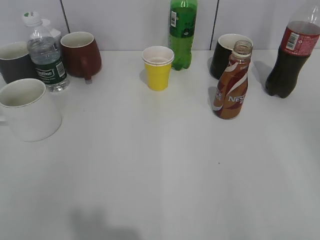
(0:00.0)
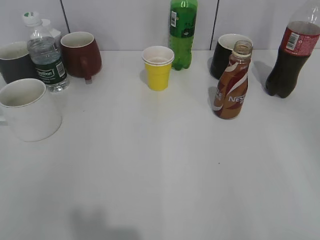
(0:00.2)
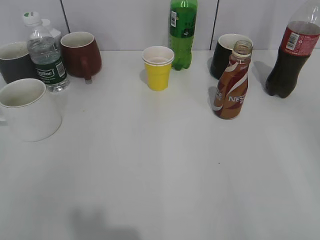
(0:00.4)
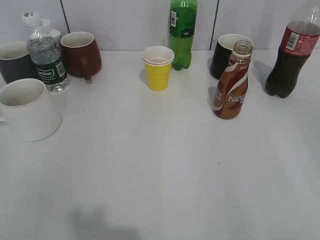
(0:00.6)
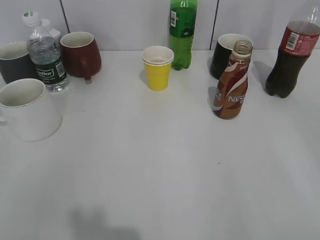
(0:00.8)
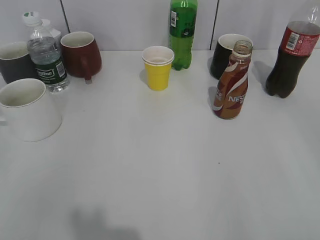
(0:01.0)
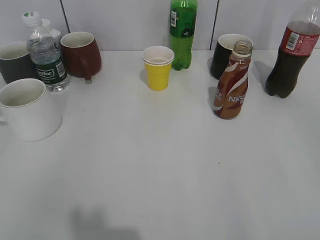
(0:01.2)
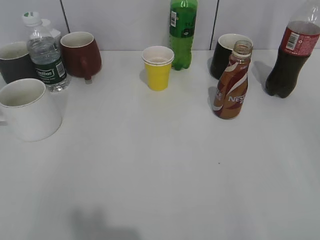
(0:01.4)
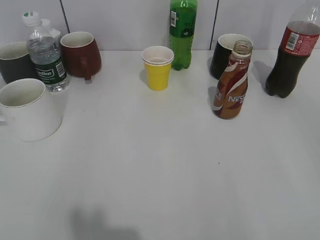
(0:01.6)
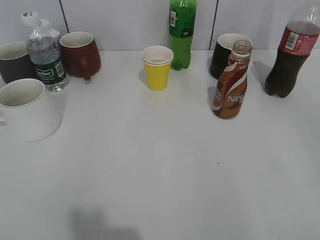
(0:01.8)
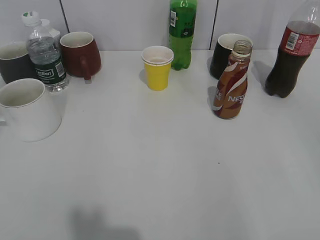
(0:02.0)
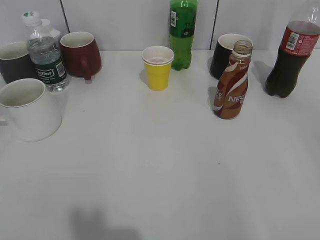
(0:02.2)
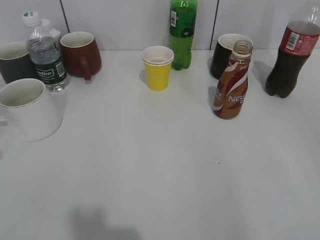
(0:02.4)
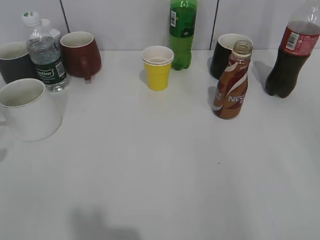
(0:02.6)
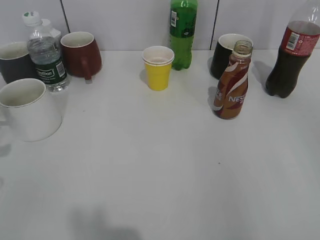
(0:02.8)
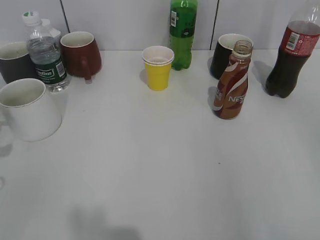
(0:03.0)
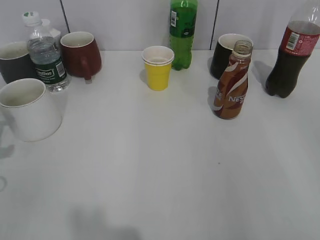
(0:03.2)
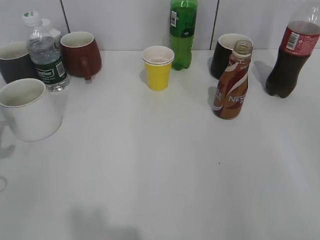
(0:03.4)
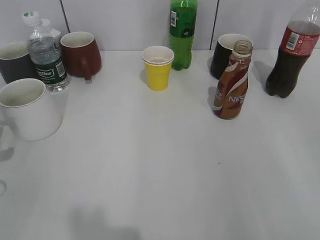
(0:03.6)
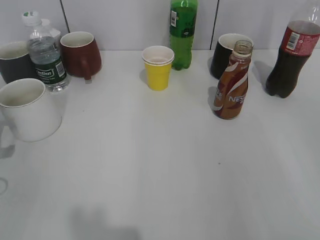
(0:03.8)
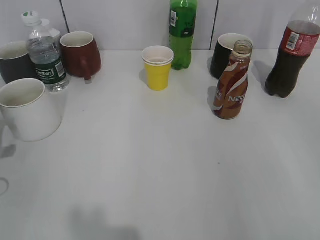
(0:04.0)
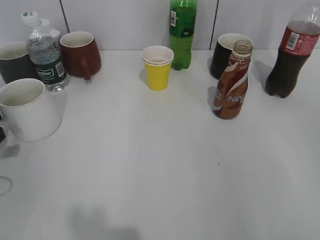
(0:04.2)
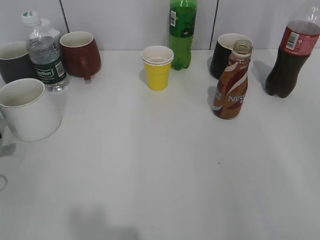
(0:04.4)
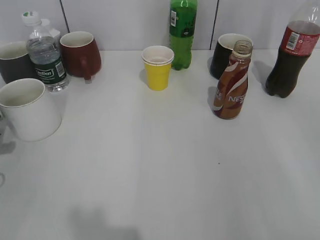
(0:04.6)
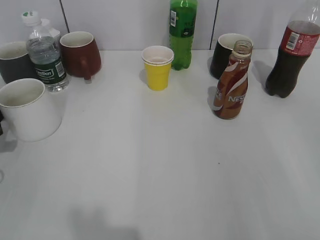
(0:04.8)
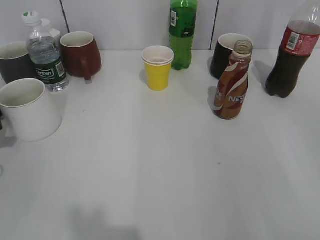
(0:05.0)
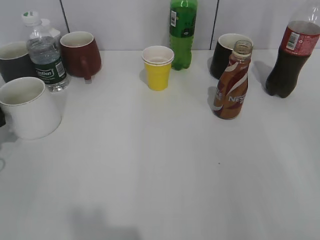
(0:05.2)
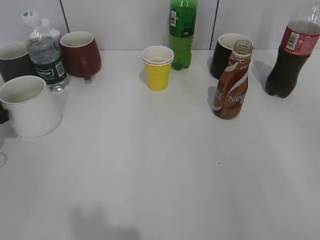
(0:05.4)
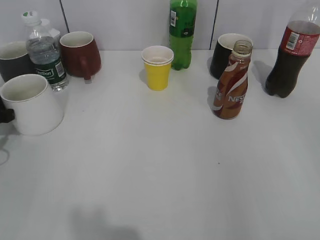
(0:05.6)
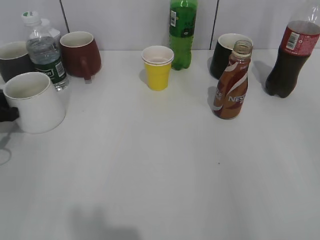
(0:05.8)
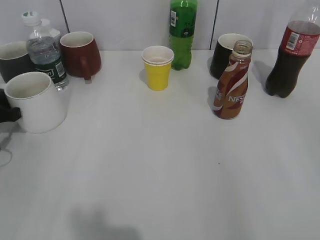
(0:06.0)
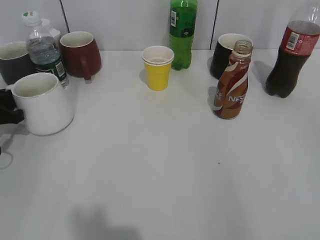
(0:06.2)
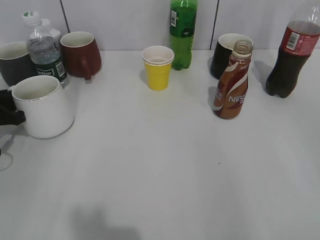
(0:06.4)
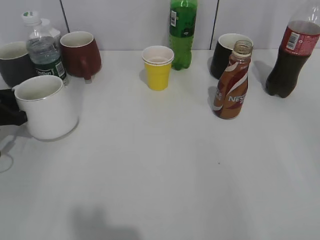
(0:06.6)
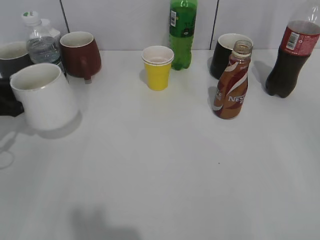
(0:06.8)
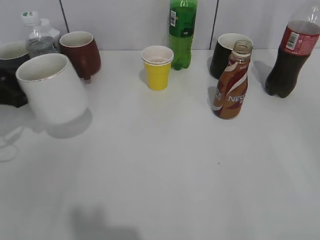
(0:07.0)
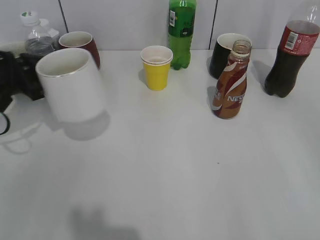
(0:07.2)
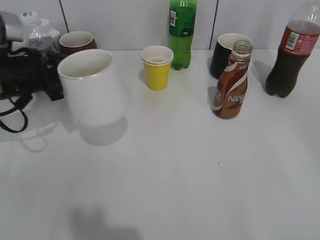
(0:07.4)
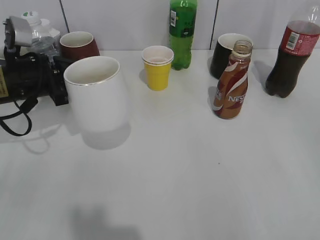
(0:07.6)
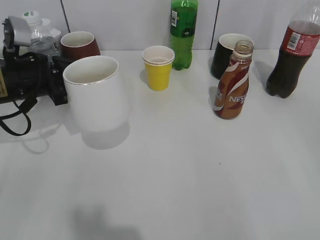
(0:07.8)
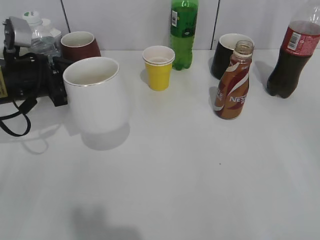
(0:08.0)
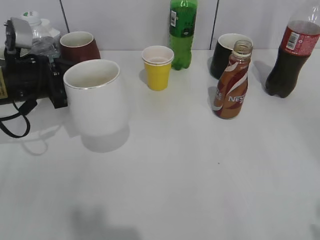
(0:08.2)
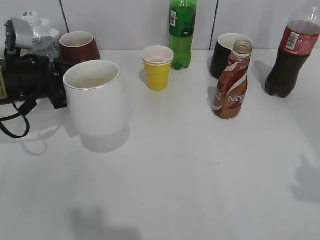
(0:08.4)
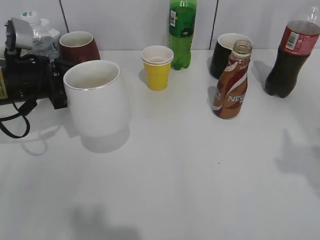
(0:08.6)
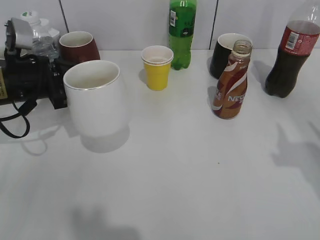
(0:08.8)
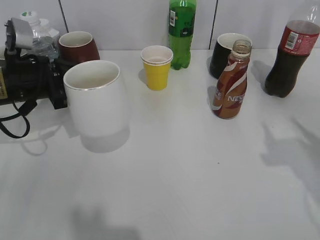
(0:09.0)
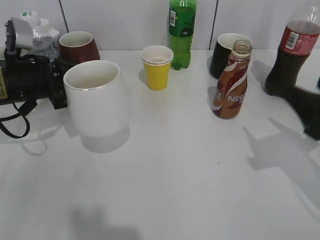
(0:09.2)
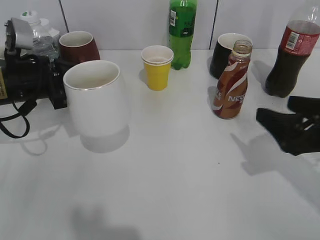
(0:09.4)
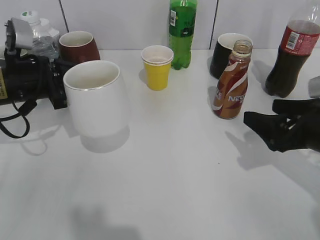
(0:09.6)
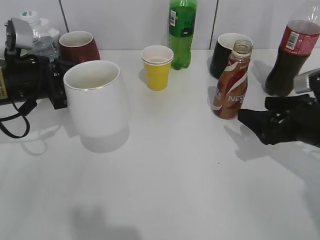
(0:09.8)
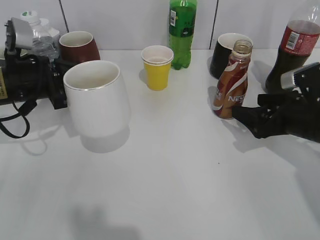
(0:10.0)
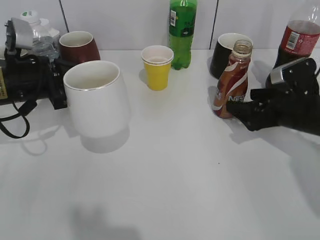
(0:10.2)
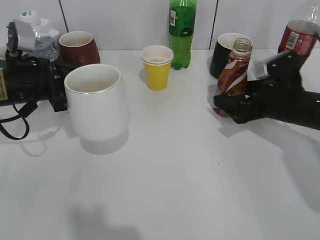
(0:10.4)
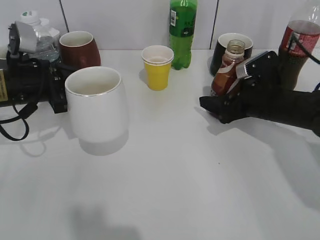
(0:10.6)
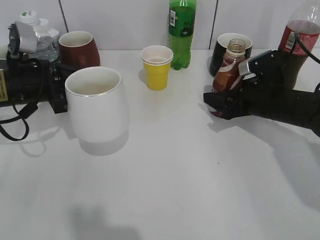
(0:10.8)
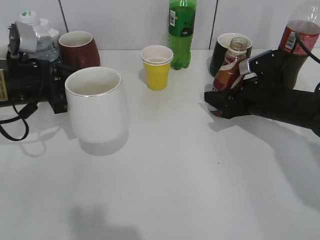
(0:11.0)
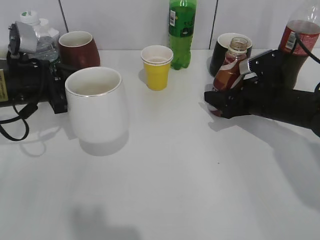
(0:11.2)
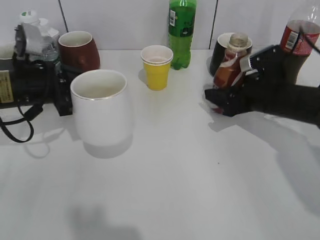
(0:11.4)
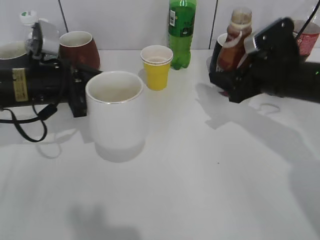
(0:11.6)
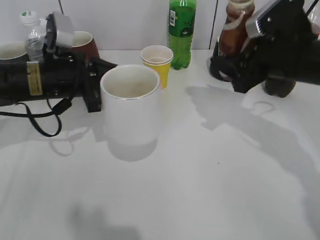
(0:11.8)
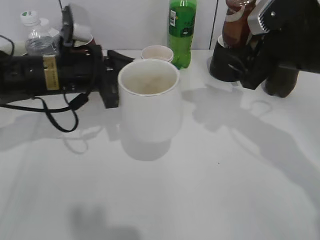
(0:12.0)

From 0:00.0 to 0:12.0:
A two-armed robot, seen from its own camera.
Step, from 0:02.6 to 0:06.2: Grasp the white cup with left gripper.
Step, from 0:06.4 to 0:08.2: Lift the white cup with left gripper.
Step, from 0:08.4 to 0:11.2: Grasp the bottle with coffee with right gripper.
From 0:03.0 to 0:04.4: The left gripper travels downward by some 5 cm.
From 0:04.4 to 0:06.0: The left gripper travels forward by roughly 10 cm, and closes.
From 0:06.0 to 0:07.6: The left gripper is displaced to the right and upward by about 15 cm, and closes up.
From 0:07.6 to 0:09.0: The right gripper goes about 15 cm forward.
From 0:09.0 to 0:10.4: The right gripper moves forward, downward and to the left, some 20 cm, and opens.
From 0:10.4 to 0:12.0: The left gripper moves to the right, about 10 cm. The right gripper heads upward, covering roughly 15 cm, and closes up.

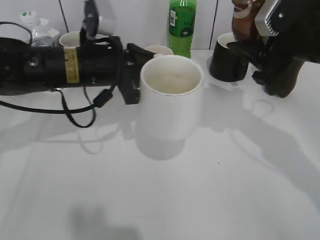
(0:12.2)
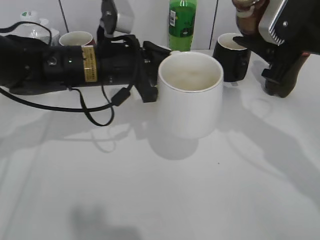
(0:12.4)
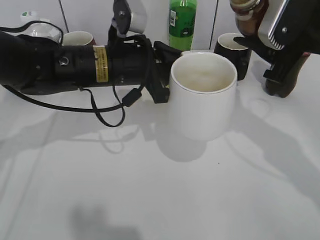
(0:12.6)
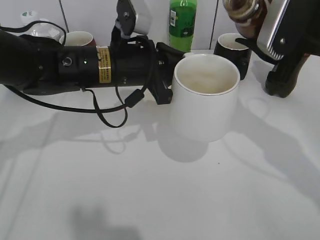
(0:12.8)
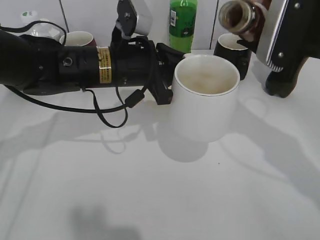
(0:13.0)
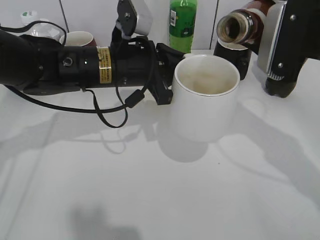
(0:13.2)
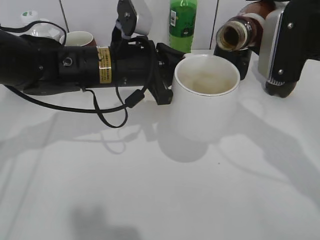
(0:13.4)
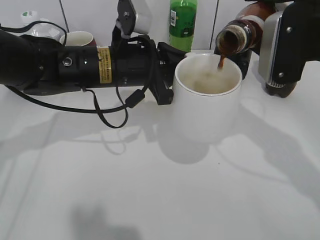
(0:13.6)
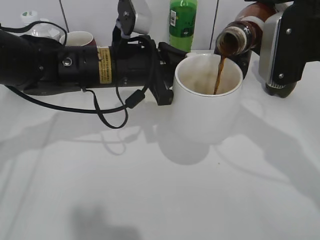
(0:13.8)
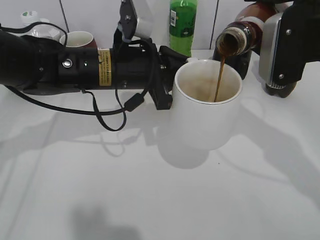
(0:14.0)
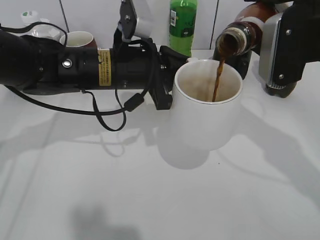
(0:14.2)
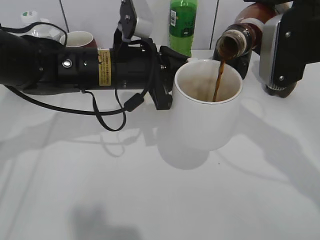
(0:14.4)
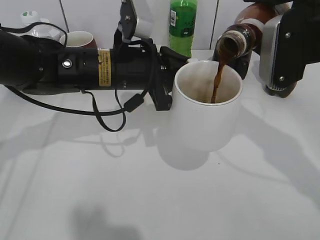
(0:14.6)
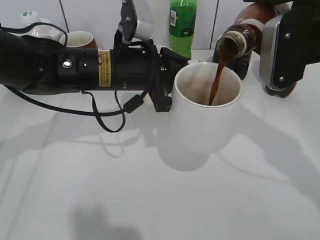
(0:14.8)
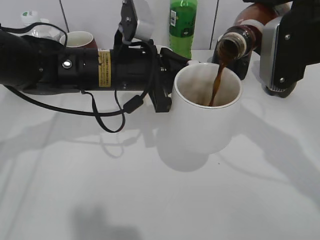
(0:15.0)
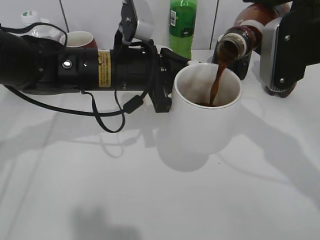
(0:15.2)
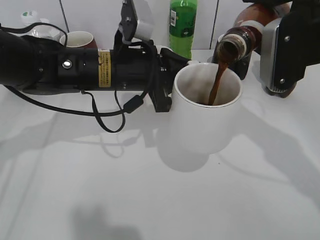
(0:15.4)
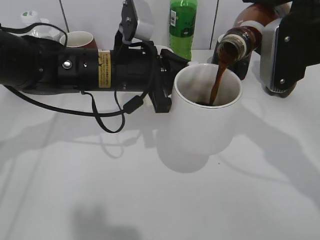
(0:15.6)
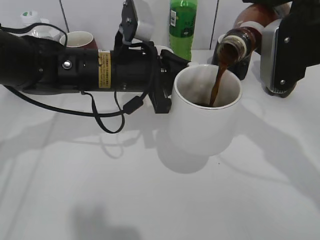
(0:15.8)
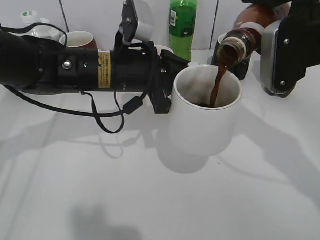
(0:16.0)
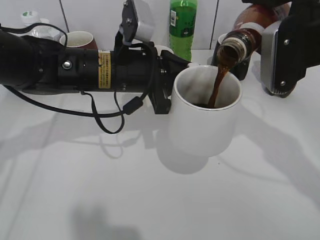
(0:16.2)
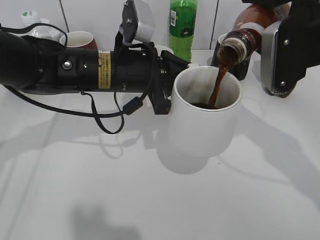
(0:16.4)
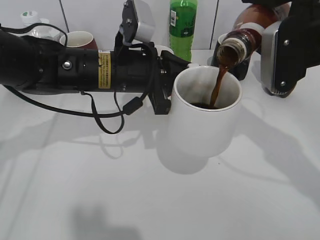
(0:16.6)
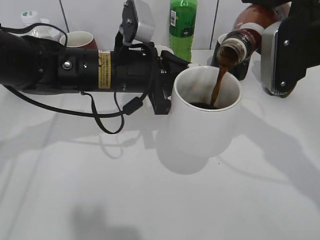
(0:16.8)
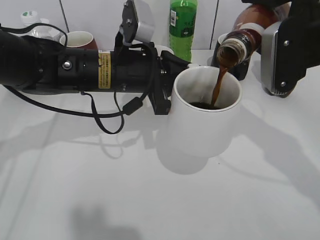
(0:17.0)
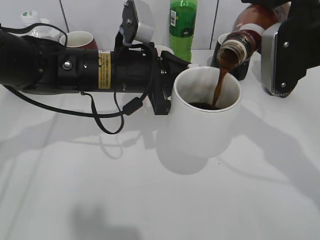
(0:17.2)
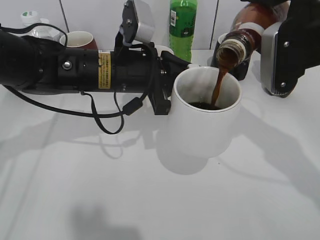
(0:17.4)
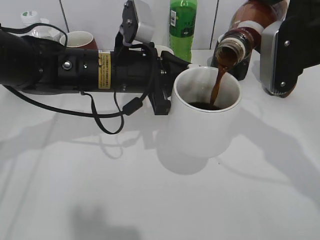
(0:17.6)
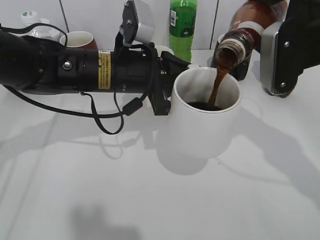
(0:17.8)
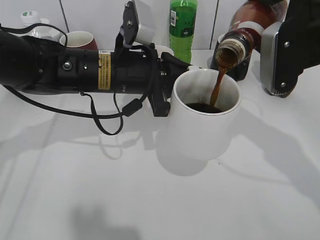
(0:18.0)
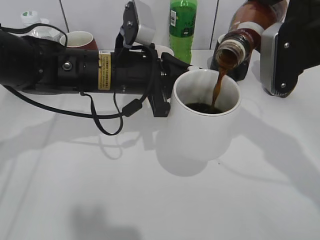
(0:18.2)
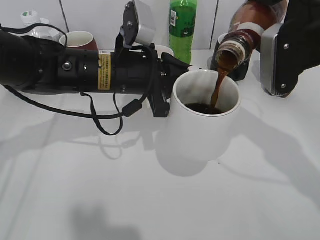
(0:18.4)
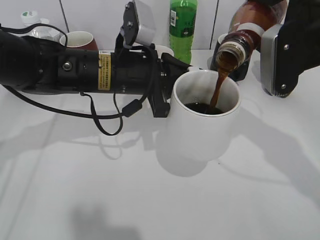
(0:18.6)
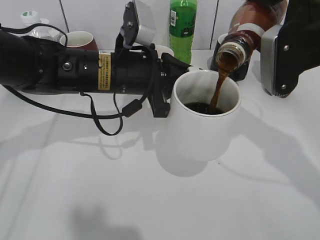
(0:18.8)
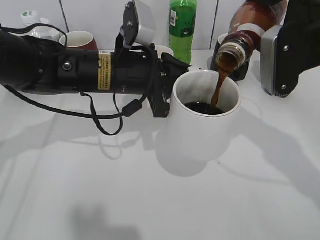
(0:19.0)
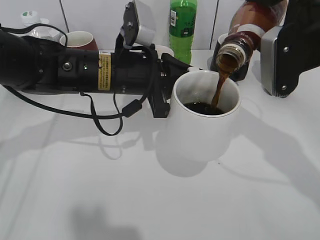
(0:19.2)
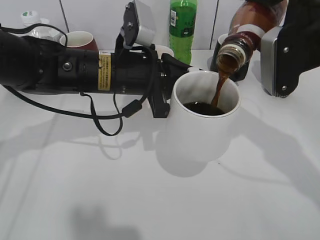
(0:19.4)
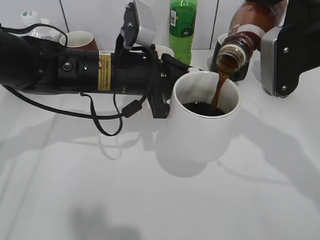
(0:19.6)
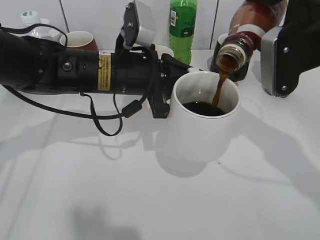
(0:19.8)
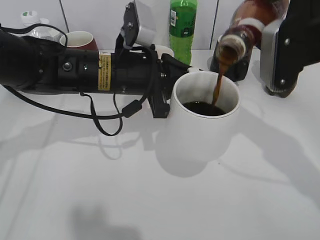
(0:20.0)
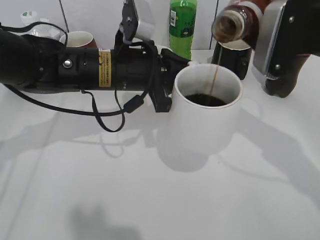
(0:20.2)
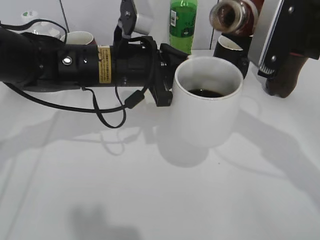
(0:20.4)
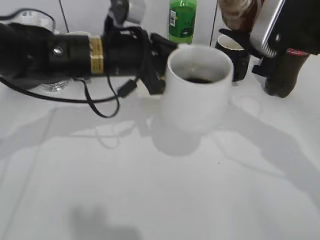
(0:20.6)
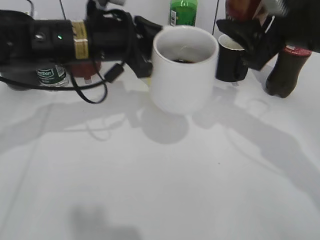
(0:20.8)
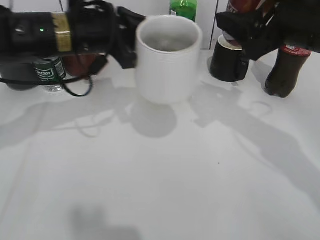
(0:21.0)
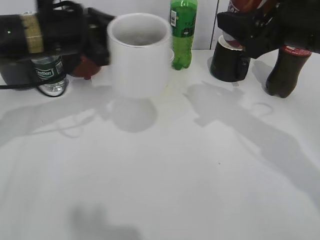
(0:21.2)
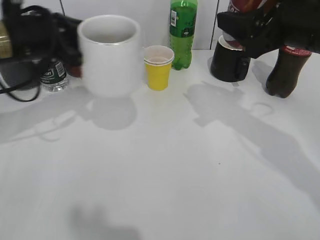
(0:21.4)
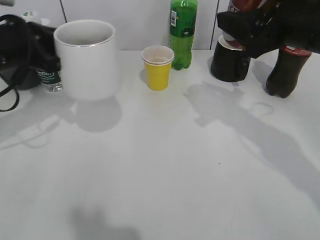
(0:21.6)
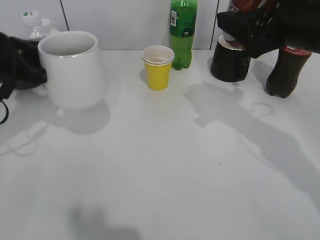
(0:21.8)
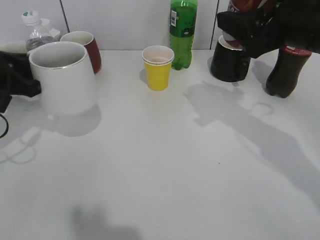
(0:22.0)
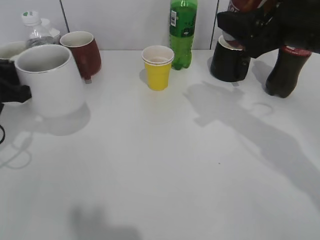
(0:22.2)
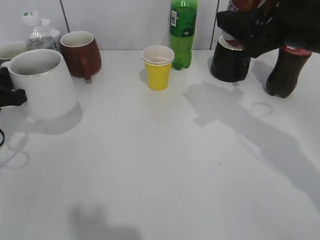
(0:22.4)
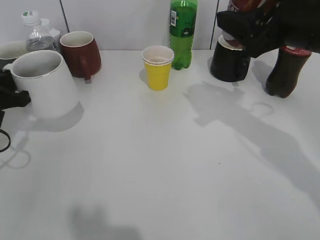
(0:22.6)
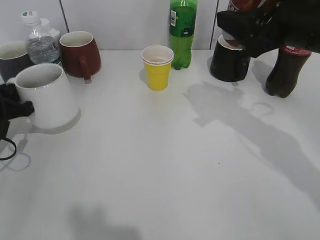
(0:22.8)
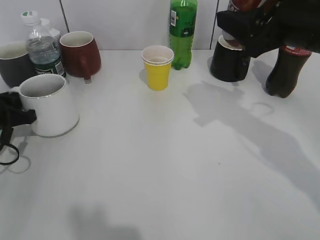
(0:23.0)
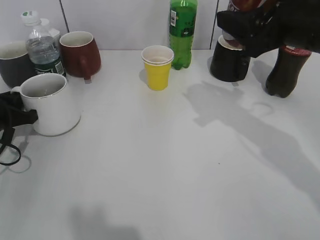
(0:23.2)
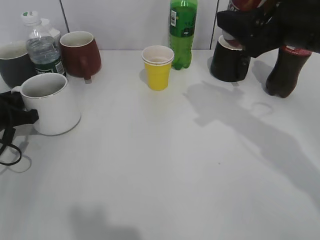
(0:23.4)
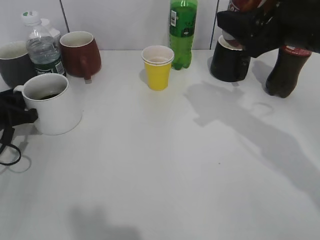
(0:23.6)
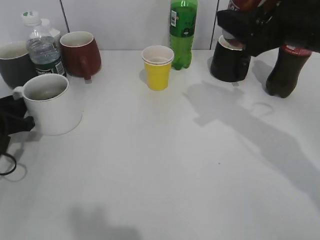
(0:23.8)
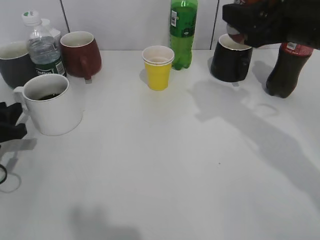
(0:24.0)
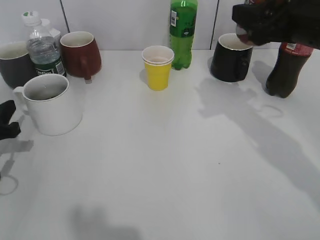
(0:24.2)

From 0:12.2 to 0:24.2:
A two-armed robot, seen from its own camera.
Step, from 0:12.2 to 0:20.2: Pour the coffee from bottle to cup with right gripper.
Step, from 0:20.6 to 0:23.8: Place the white cup on the table with left gripper.
From 0:13.8 to 0:15.2: Both grippers stay put.
From 0:15.2 to 0:16.6: Both grippers stay put.
From 0:16.6 to 0:18.2: Both grippers stay about where they are.
From 0:18.2 to 0:19.8: Neither gripper changes place.
From 0:19.8 to 0:21.2: The left gripper moves to the left, approximately 10 cm.
From 0:21.2 to 0:22.6: The left gripper moves to the left and downward, about 15 cm.
From 0:22.6 to 0:24.2: The left gripper moves about 5 cm, and opens.
